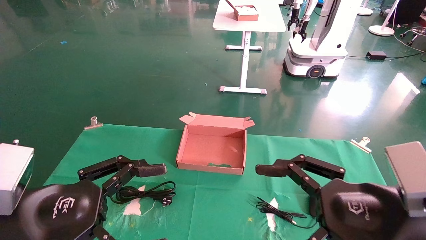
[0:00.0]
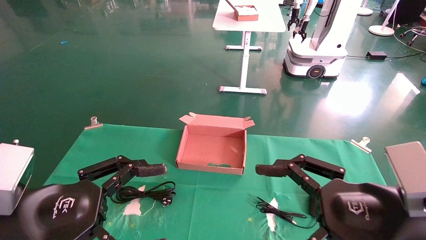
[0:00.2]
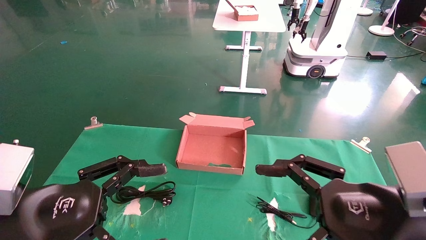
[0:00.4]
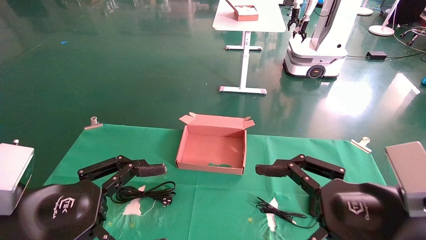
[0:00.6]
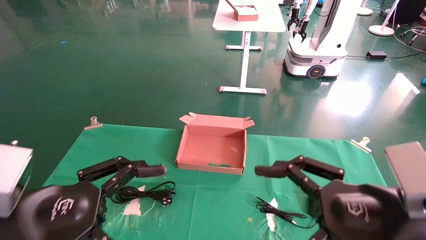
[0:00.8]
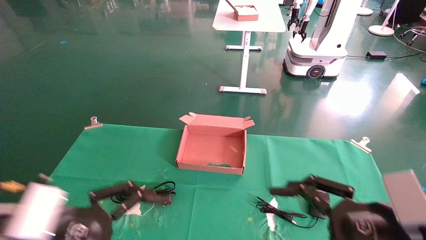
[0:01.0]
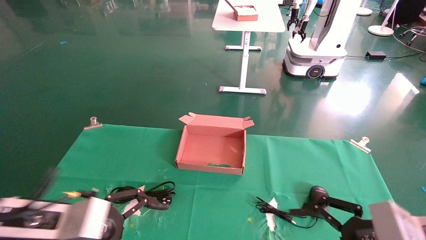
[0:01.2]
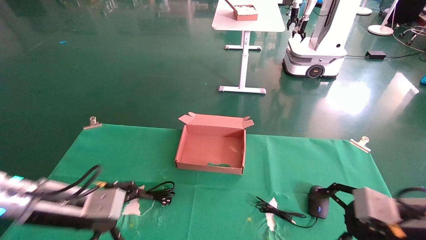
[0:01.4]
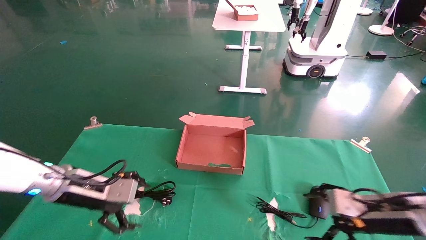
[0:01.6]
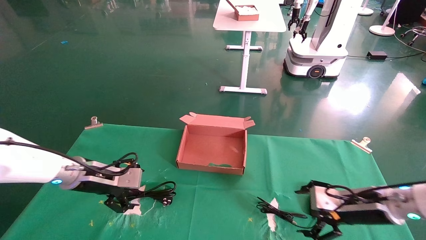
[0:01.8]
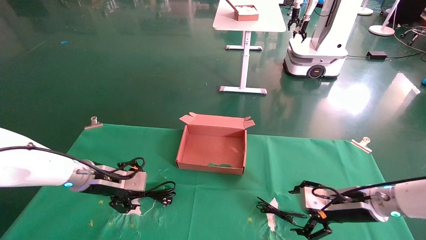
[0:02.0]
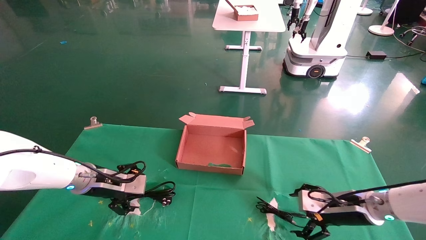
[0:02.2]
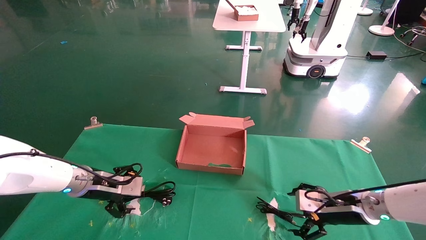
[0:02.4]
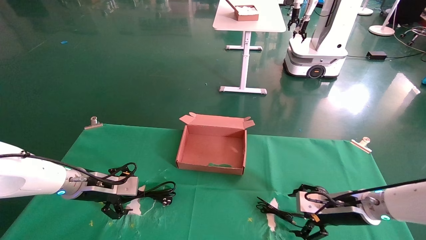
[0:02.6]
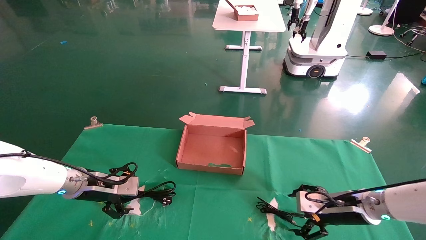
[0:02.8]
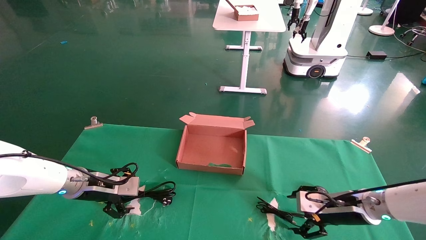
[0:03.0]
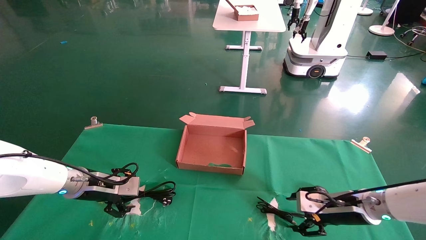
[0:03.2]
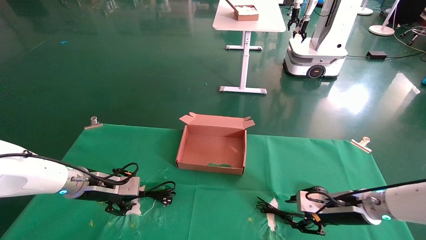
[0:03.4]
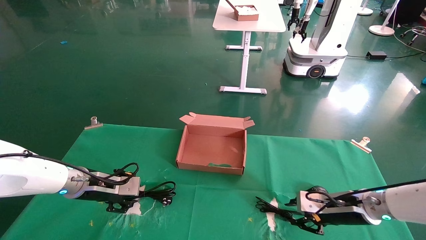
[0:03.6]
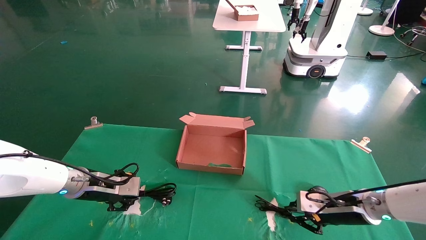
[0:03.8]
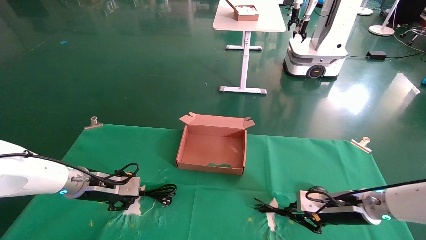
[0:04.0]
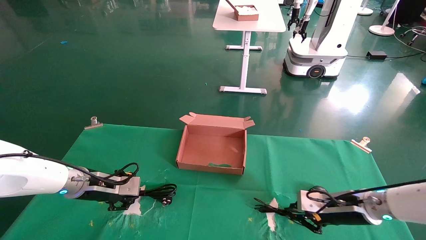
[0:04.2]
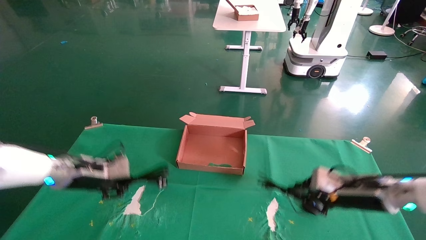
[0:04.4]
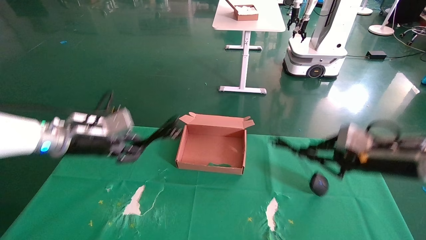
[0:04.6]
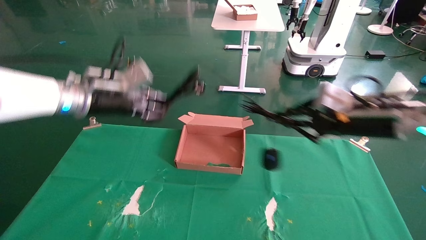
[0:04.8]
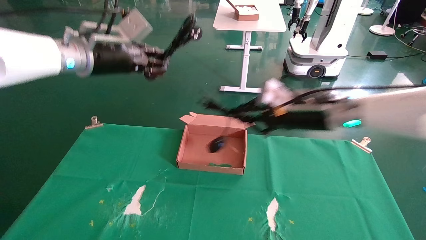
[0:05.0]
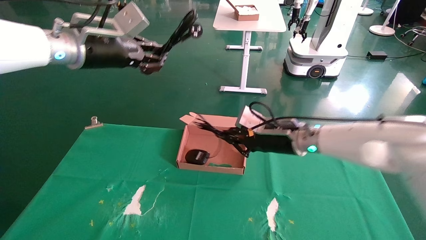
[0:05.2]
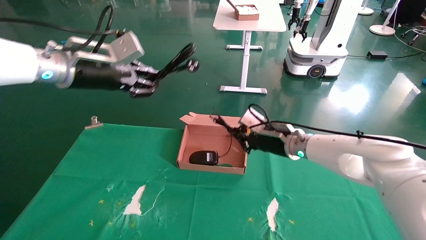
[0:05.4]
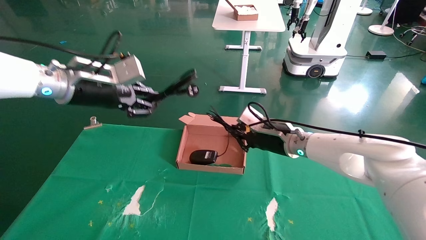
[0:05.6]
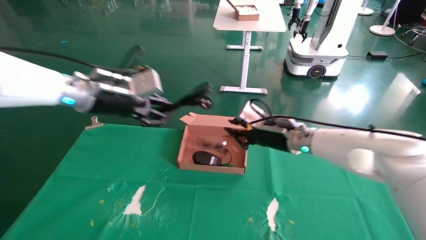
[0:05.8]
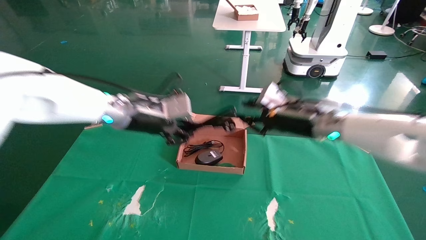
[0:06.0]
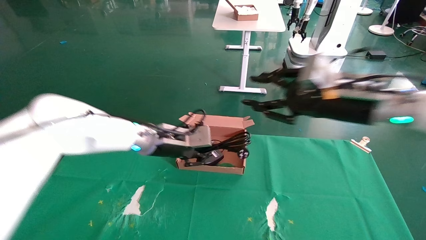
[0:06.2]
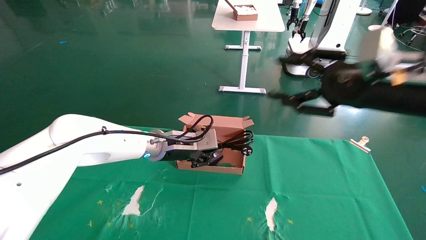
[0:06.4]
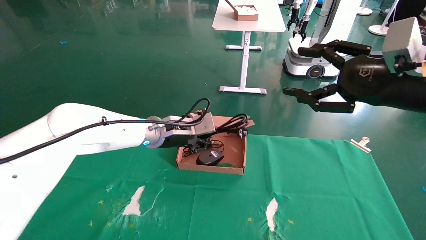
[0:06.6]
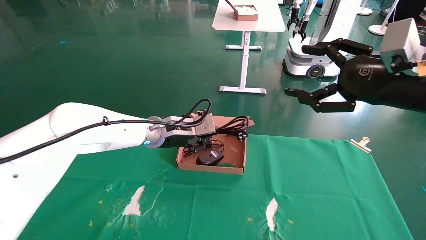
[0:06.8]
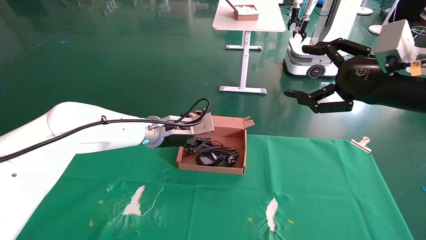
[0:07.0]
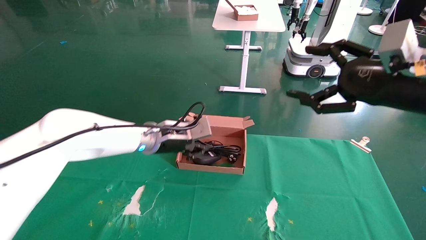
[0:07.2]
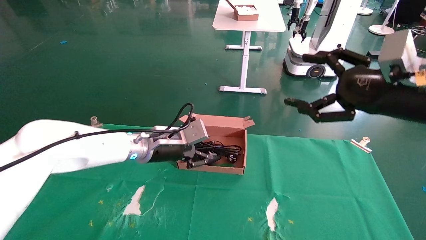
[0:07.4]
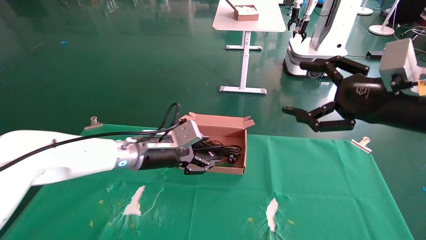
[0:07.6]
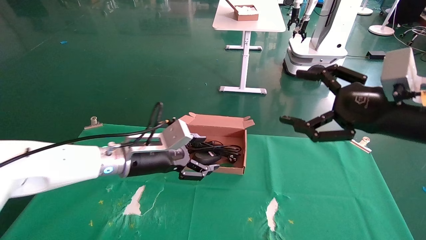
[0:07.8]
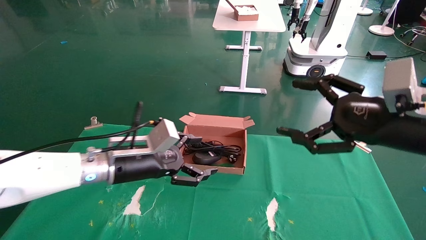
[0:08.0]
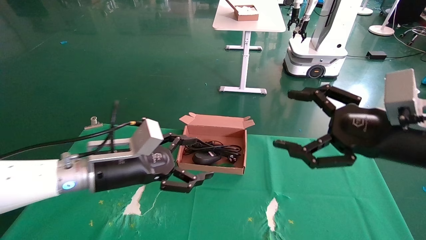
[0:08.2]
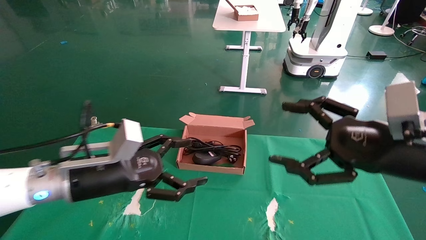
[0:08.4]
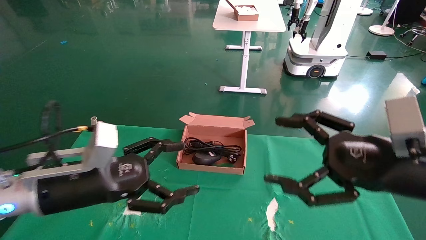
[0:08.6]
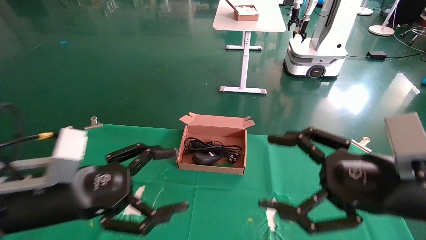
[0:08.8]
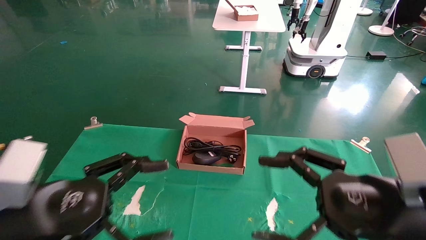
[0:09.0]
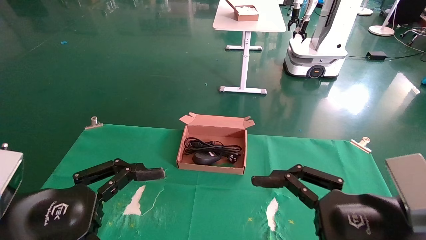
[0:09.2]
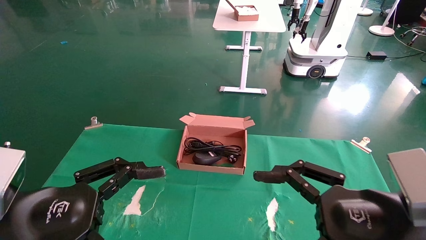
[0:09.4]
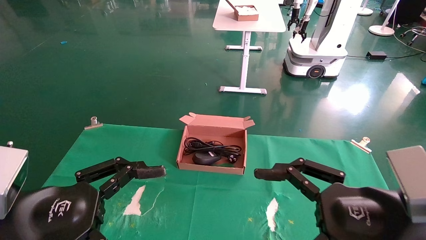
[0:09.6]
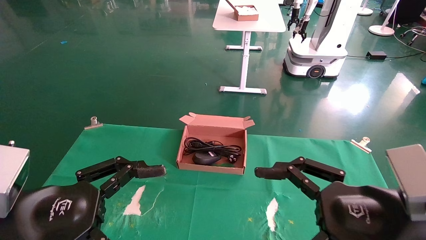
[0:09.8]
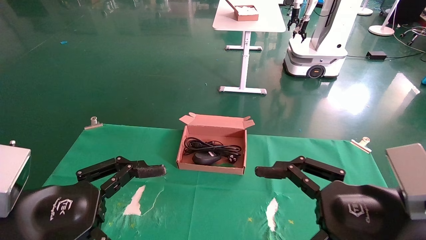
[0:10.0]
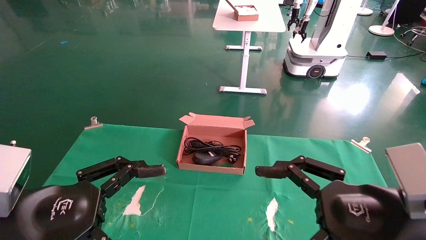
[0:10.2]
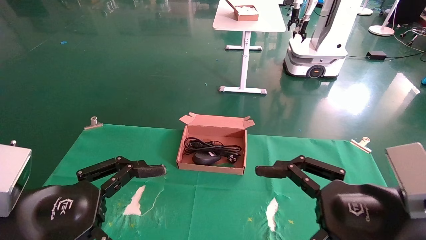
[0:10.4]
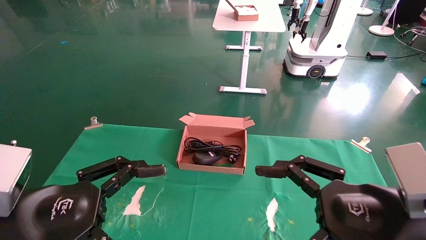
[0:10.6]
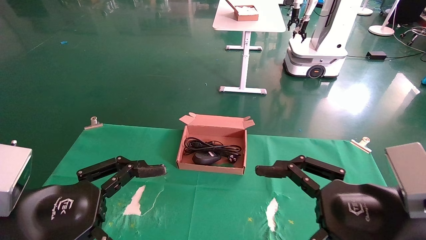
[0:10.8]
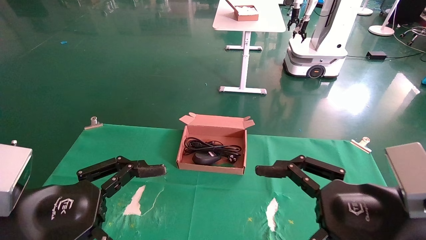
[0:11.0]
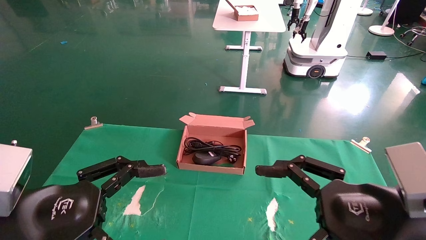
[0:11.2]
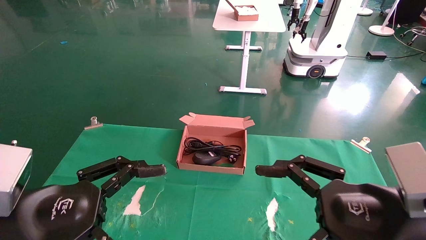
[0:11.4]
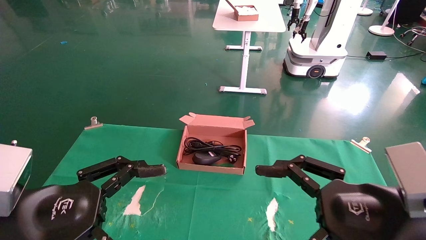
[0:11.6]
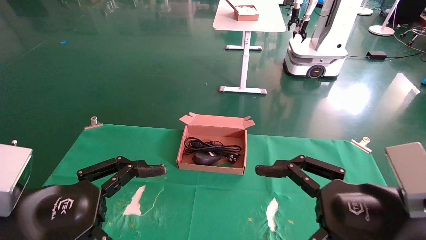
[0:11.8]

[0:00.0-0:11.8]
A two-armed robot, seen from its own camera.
Step, 0:01.2 to 0:03.8: Grab and lift both the mouse and power cord from the accessory packaging area at the same time.
Step, 0:04.0 to 0:07.6: Place the mouse and power cord into the box.
0:00.0 to 0:01.4: The left gripper shifts some 15 cm forward. Meanwhile the right gripper heads forward, to the right and downward, covering some 15 cm.
0:01.4 to 0:03.0: The left gripper heads forward, covering about 10 cm, while the right gripper shifts about 15 cm forward and downward.
0:03.0 to 0:04.4: The grippers both shift upward by approximately 5 cm. The left gripper closes. Meanwhile the right gripper closes.
0:04.4 to 0:06.0: The left gripper shifts about 15 cm to the right and upward. Meanwhile the right gripper shifts roughly 15 cm upward and to the left.
0:06.0 to 0:07.4: The right gripper heads backward, to the right and upward, covering about 15 cm, and opens; the left gripper moves downward, about 5 cm.
0:07.4 to 0:08.8: The left gripper is displaced backward and to the left by about 25 cm, and opens its fingers. The right gripper is displaced downward, backward and to the left by approximately 15 cm.
0:10.4 to 0:11.8: Both grippers stay put.

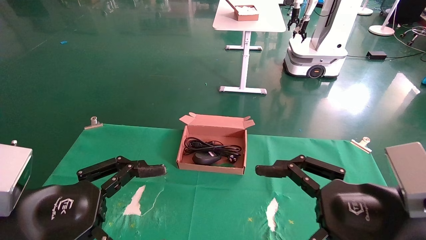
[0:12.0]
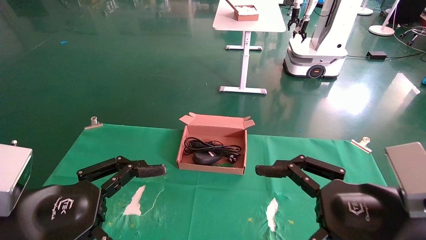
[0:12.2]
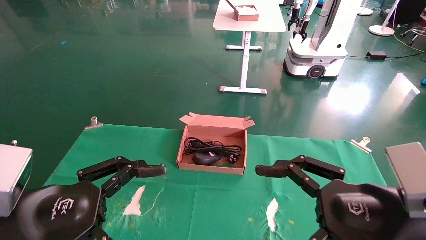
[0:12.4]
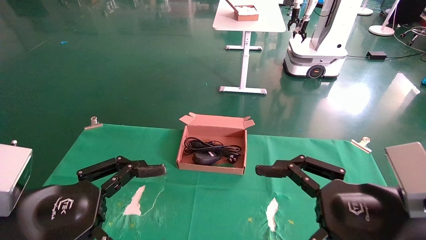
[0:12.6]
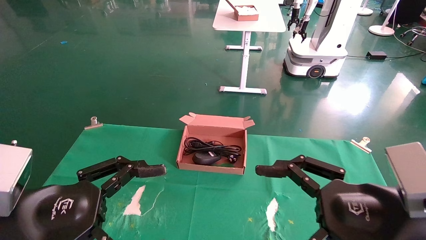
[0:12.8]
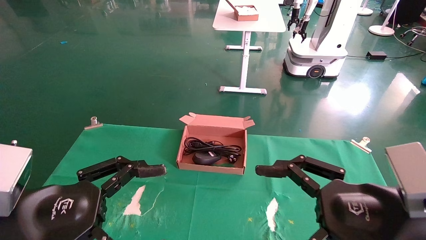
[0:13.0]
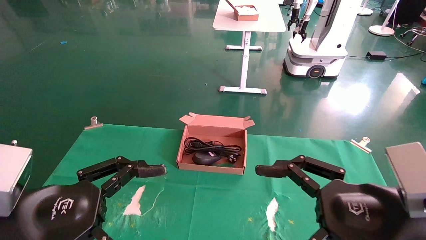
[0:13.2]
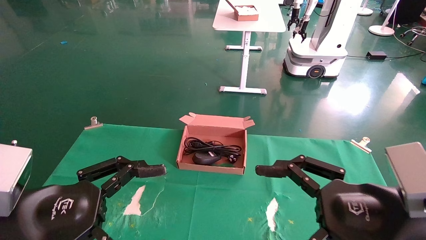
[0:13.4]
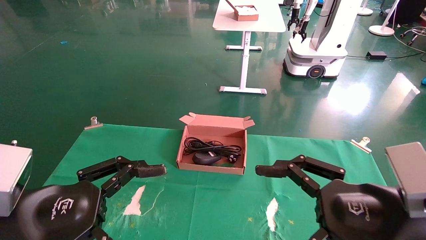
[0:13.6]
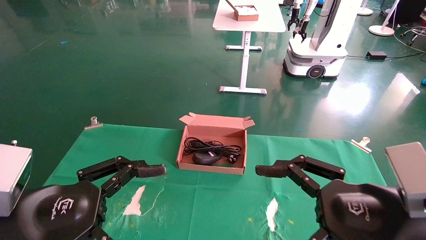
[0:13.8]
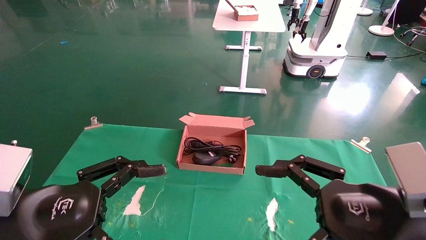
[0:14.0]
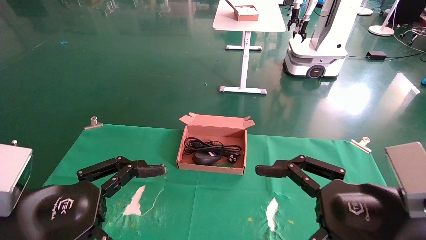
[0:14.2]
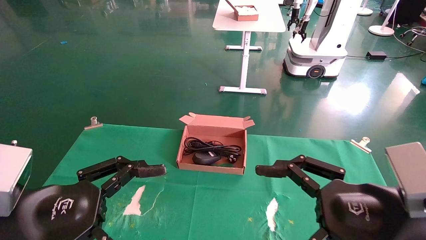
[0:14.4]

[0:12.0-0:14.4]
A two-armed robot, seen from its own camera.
0:12.0 to 0:14.4: Both grippers stay put.

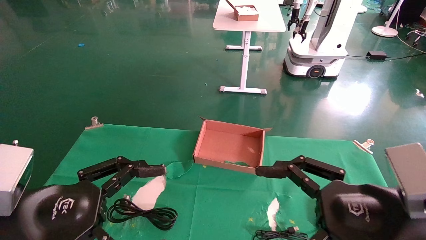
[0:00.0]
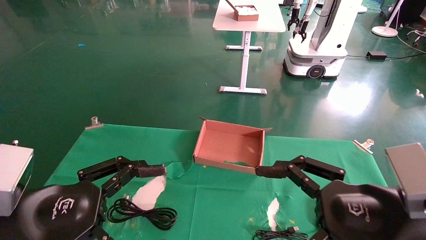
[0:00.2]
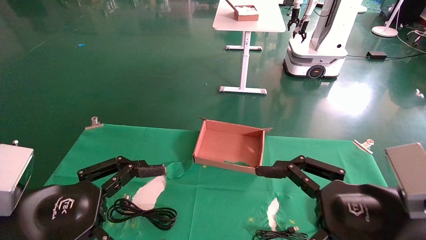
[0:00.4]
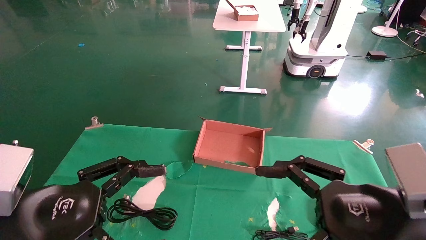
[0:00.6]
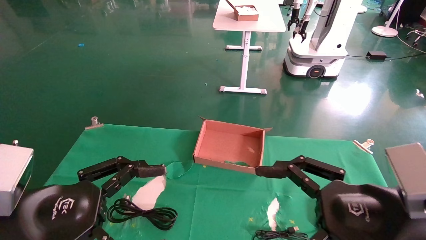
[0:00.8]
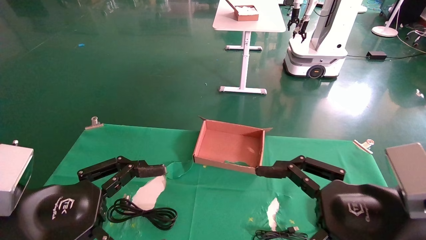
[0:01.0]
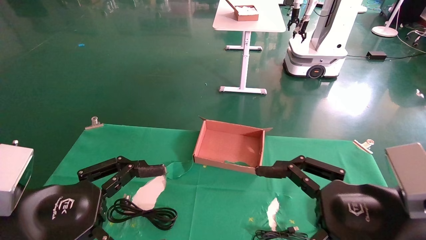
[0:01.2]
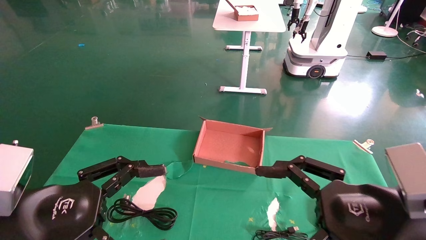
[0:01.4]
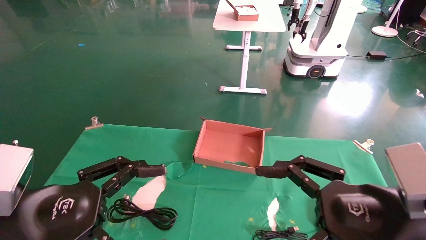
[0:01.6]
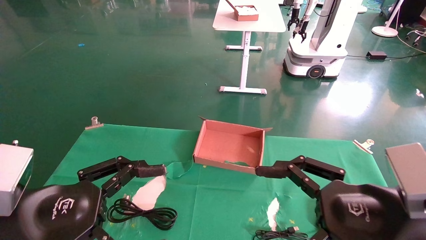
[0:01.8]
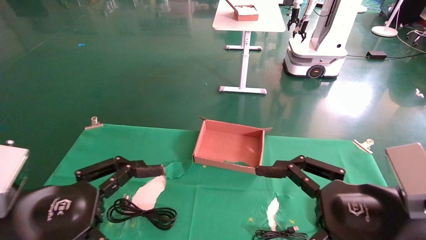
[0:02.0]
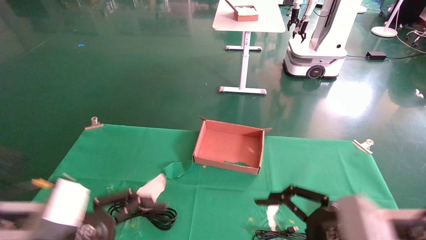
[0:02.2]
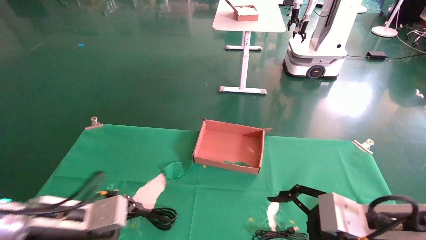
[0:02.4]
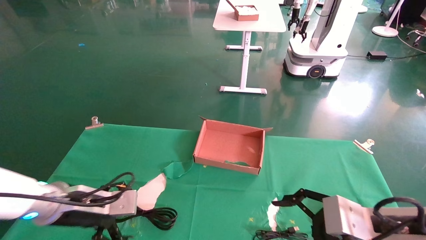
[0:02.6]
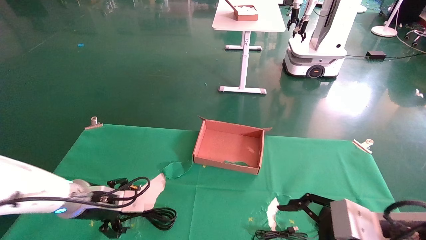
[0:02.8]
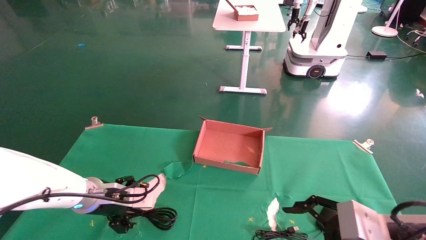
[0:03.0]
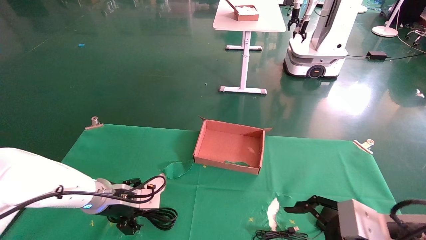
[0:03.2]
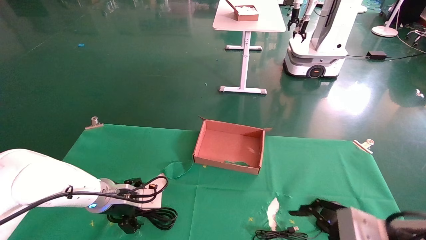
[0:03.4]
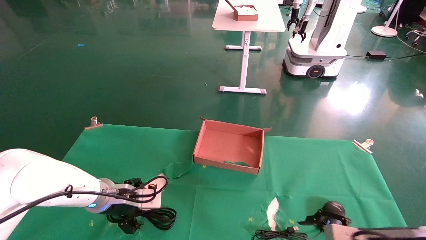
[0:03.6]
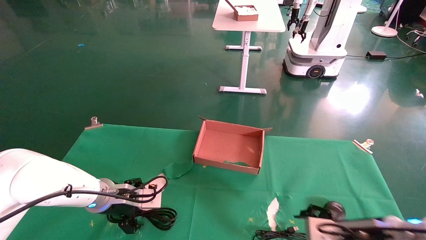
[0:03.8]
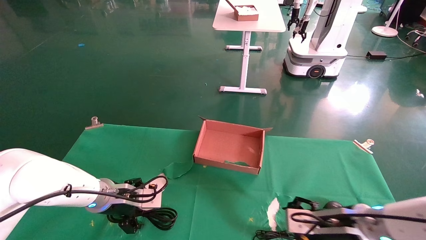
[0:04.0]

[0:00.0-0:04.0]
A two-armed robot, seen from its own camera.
0:00.0 to 0:01.4: Both grippers stay about where they are.
0:01.4 to 0:02.6: The left gripper travels forward and downward by about 15 cm. Meanwhile the right gripper travels downward by some 5 cm.
0:02.6 to 0:04.0: The right gripper is displaced forward and downward by about 15 cm. The left gripper goes roughly 10 cm forward.
